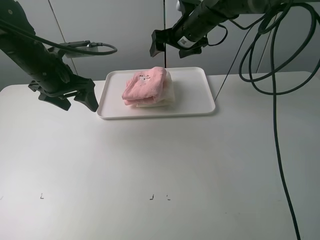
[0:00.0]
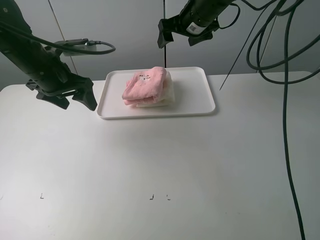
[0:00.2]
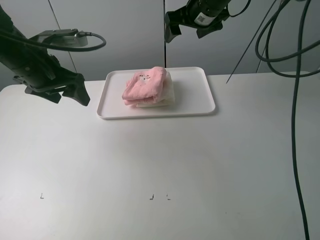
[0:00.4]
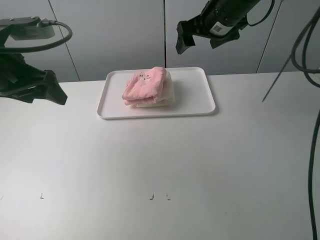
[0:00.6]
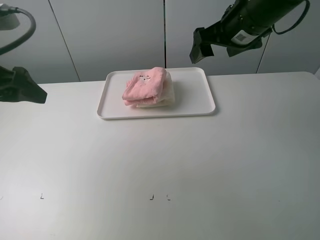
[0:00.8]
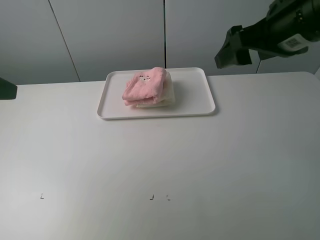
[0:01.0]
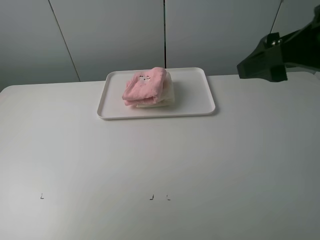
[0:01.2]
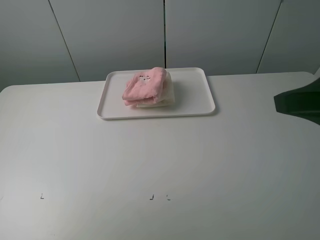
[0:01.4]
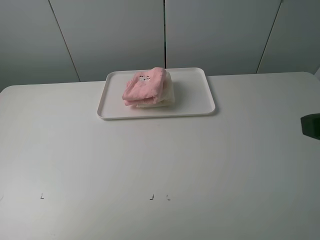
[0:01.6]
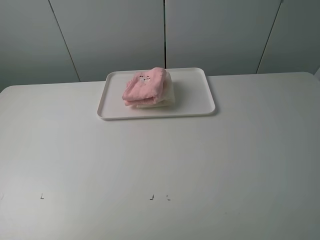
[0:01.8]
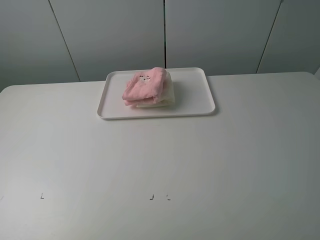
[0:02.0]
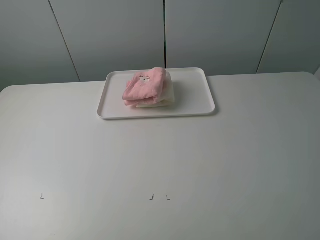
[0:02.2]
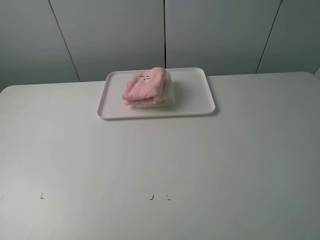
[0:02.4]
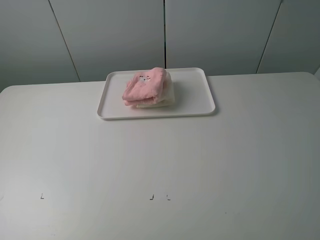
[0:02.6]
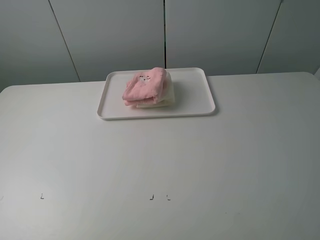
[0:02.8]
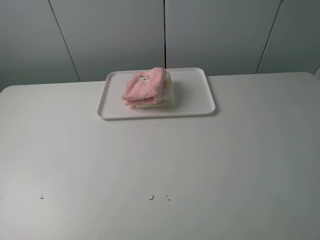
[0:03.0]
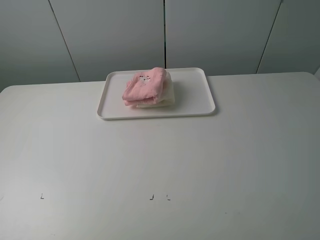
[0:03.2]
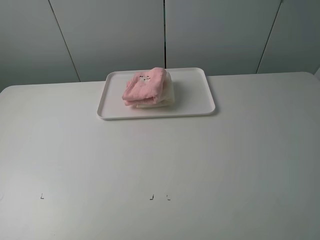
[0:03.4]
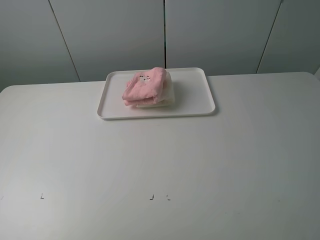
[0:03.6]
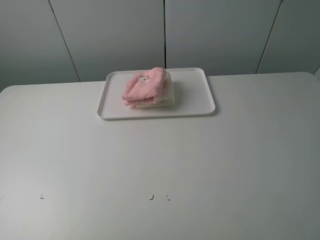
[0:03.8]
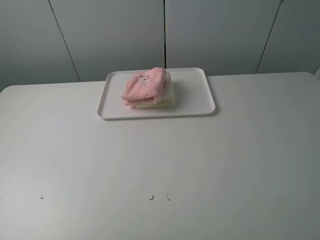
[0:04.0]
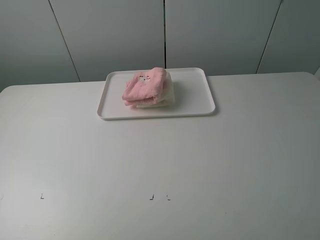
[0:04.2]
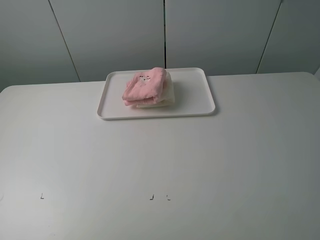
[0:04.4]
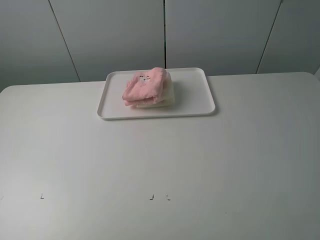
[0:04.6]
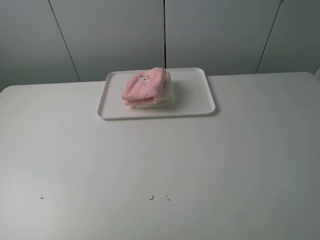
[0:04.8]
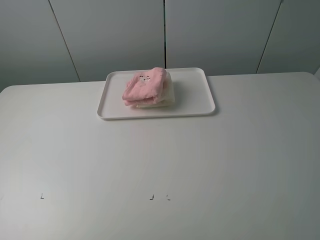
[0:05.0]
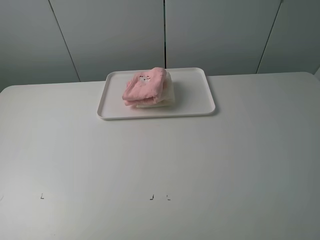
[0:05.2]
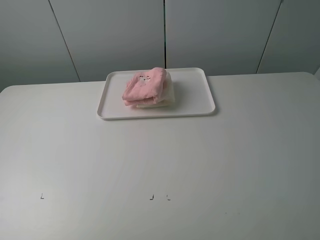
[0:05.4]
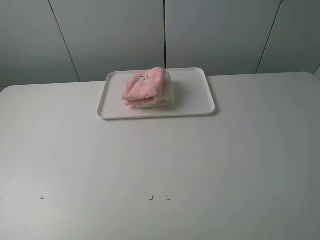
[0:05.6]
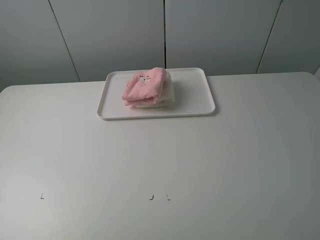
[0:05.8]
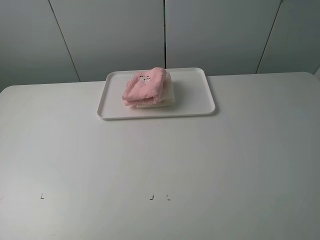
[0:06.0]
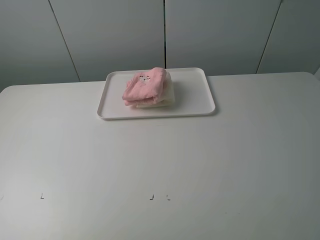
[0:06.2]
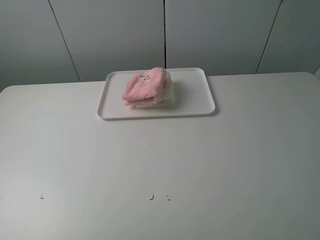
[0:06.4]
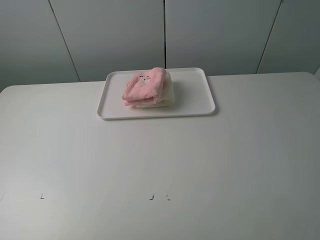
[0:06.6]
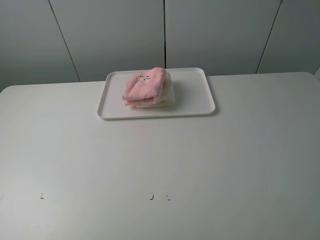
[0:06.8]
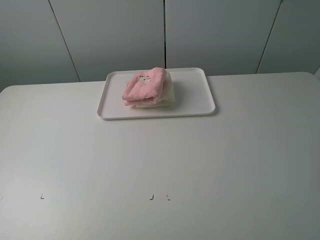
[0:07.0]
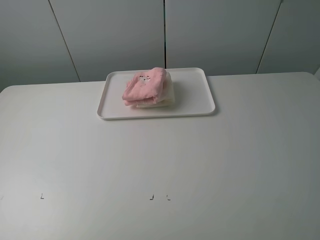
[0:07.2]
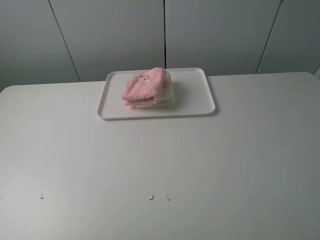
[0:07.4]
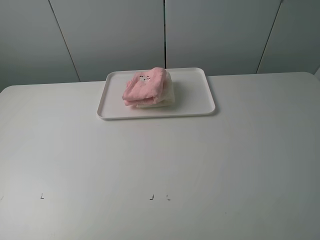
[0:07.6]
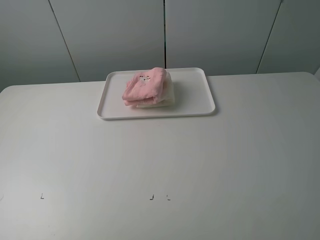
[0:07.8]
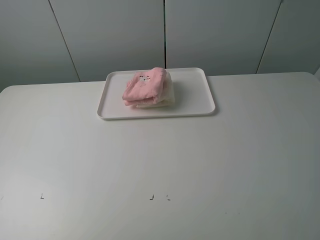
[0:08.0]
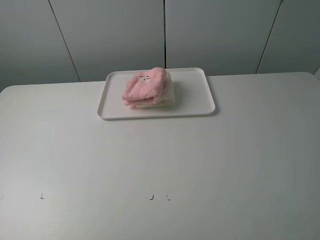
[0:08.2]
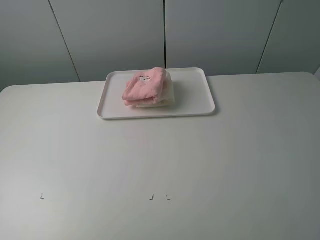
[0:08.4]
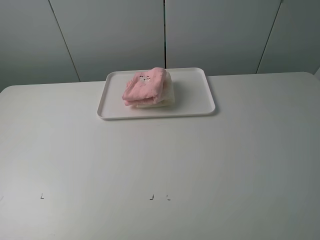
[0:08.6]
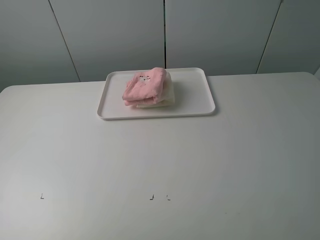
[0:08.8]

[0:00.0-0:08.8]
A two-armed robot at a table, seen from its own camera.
Task of the whole recording: fold one of the towels by two grippers and place it on the tray,then fold another towel by two grippers and place it on the folded towel.
0:00.0 to 0:01.4: The right gripper is displaced backward and to the right by approximately 40 cm. Meanwhile the left gripper is displaced backward and upward by approximately 30 cm.
0:01.4 to 0:03.0: The right gripper is displaced backward and to the right by approximately 10 cm.
0:03.0 to 0:04.4: Neither gripper changes place.
0:05.8 to 0:08.8: The two grippers keep their place.
